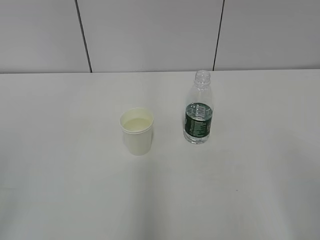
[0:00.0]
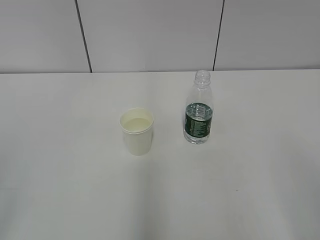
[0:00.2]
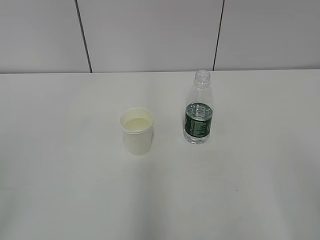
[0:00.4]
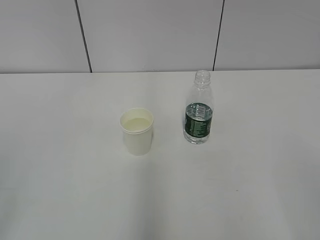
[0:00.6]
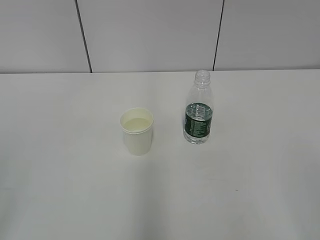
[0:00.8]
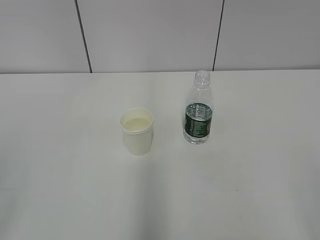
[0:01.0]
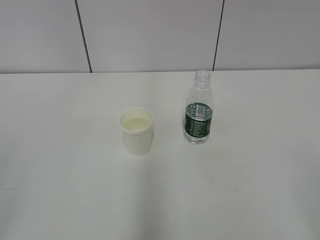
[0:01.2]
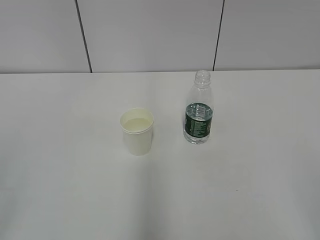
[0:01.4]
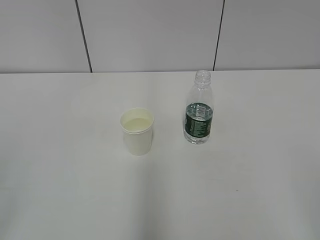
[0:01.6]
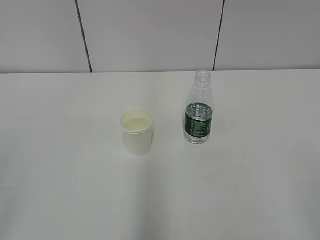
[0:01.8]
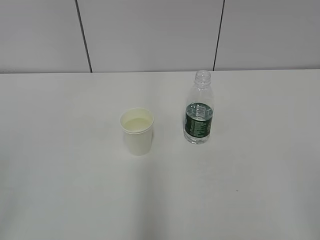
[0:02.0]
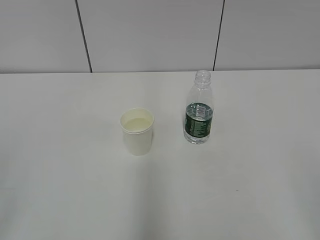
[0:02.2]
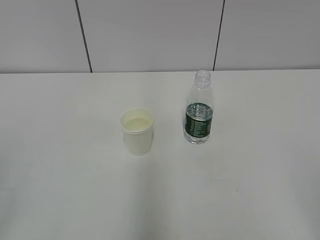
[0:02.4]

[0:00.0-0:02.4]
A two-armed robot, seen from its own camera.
0:01.2 to 0:02.4: The two grippers keep their place.
